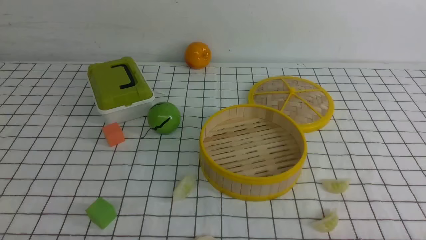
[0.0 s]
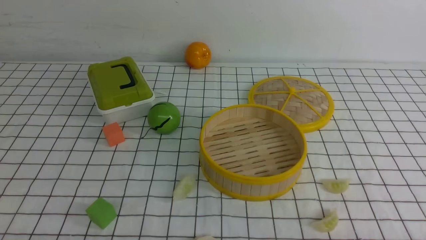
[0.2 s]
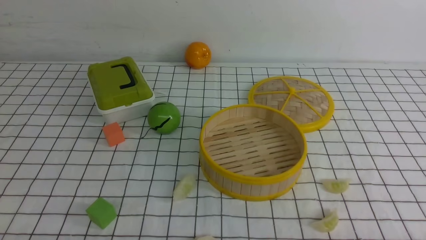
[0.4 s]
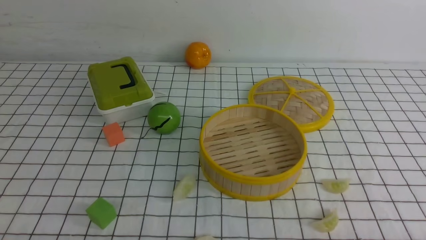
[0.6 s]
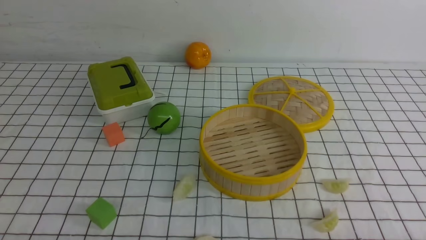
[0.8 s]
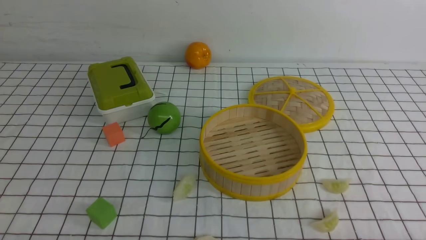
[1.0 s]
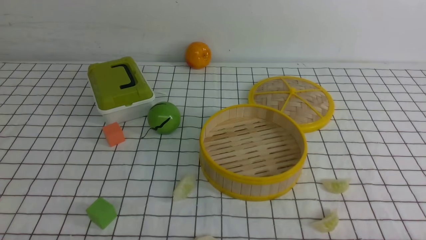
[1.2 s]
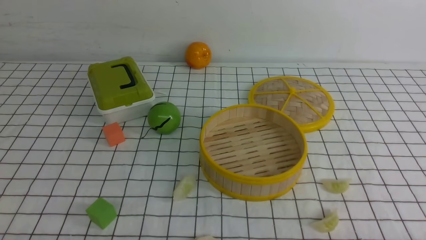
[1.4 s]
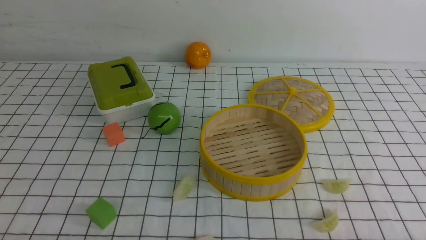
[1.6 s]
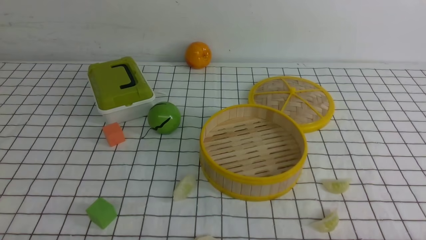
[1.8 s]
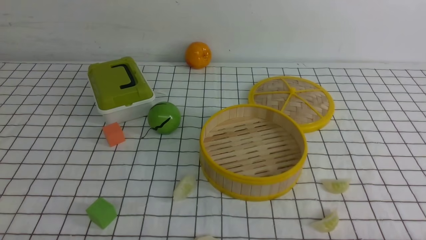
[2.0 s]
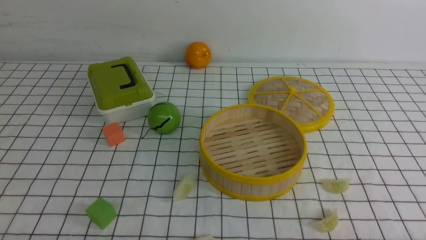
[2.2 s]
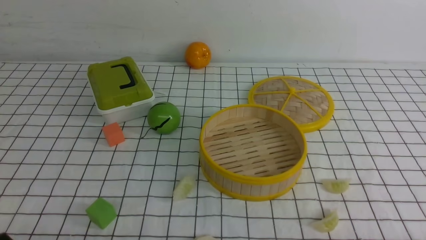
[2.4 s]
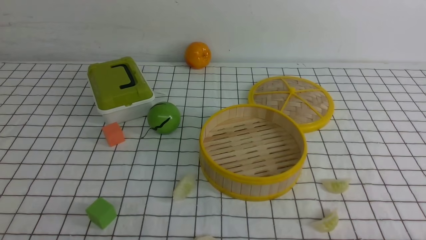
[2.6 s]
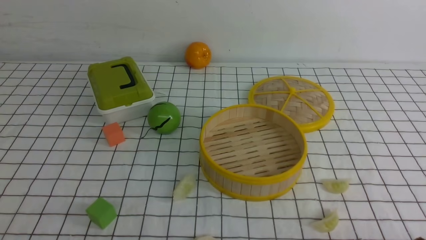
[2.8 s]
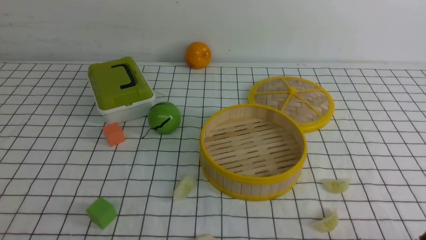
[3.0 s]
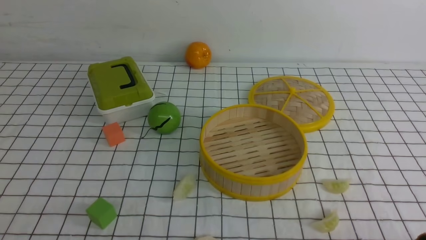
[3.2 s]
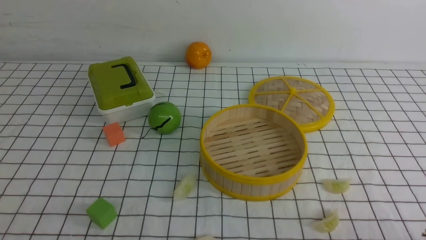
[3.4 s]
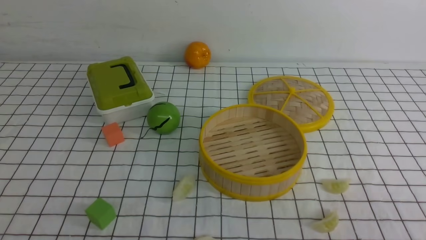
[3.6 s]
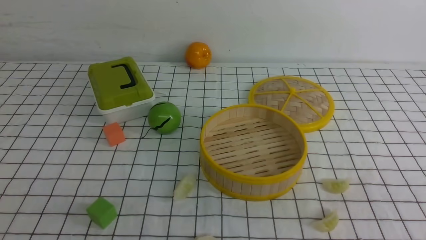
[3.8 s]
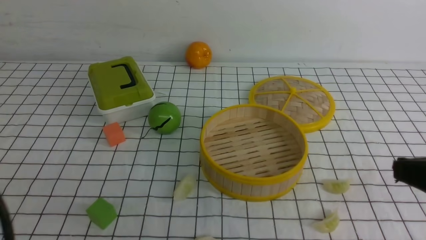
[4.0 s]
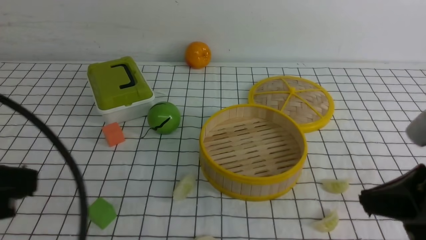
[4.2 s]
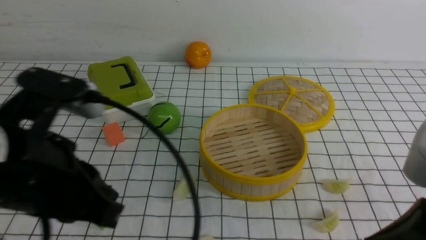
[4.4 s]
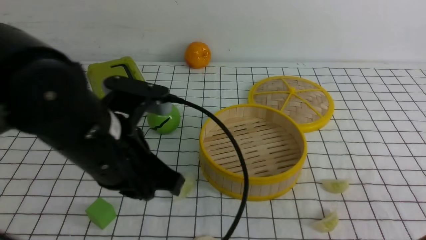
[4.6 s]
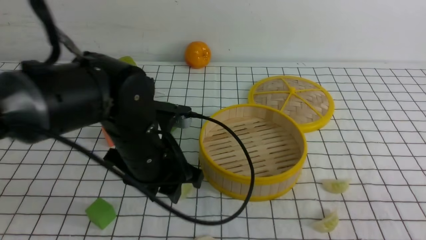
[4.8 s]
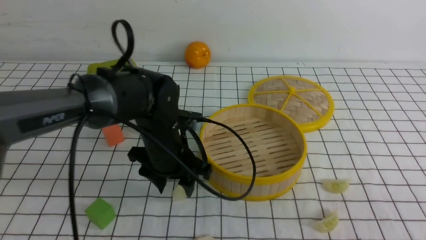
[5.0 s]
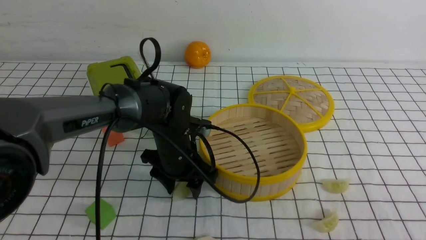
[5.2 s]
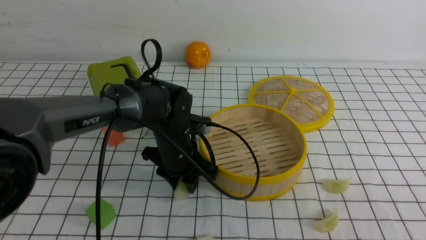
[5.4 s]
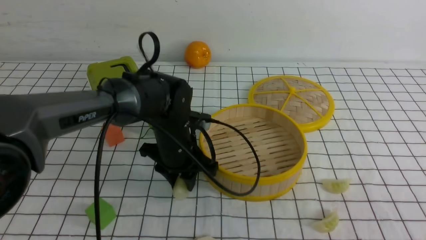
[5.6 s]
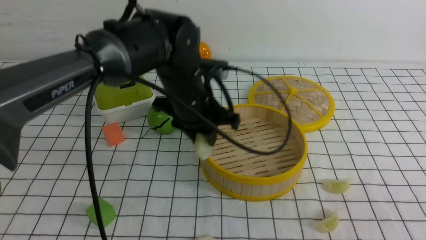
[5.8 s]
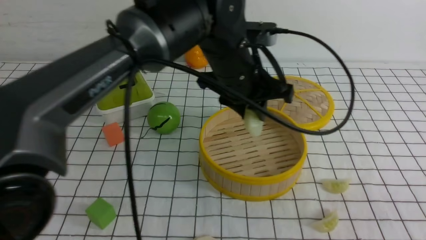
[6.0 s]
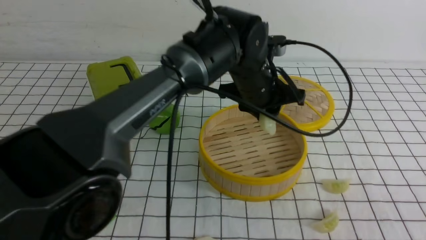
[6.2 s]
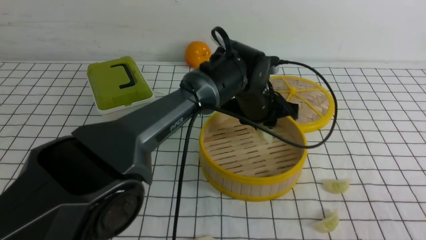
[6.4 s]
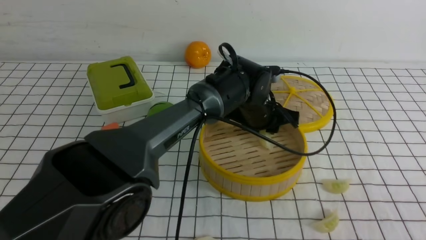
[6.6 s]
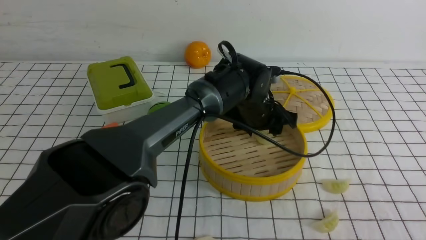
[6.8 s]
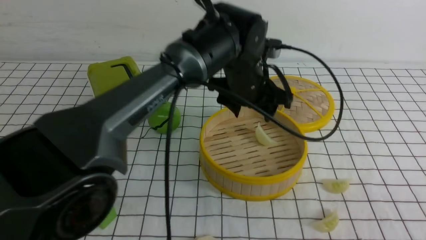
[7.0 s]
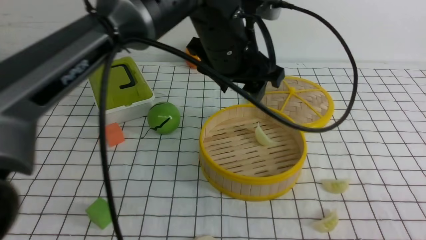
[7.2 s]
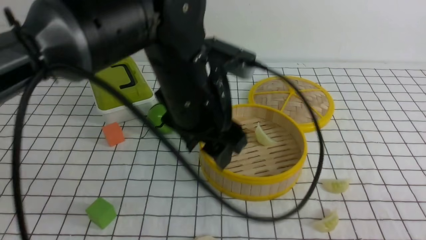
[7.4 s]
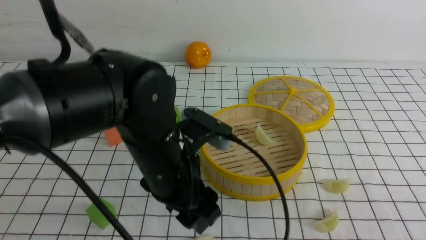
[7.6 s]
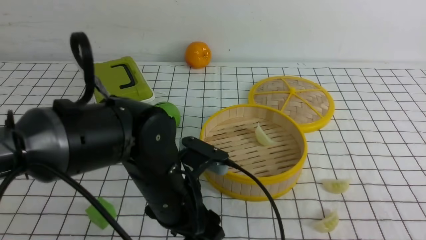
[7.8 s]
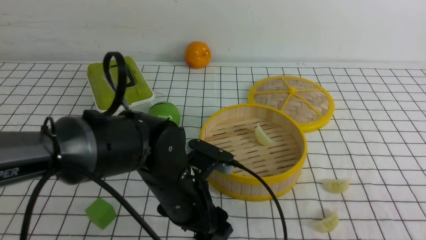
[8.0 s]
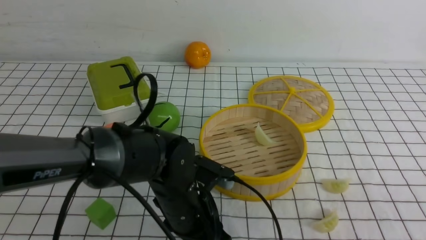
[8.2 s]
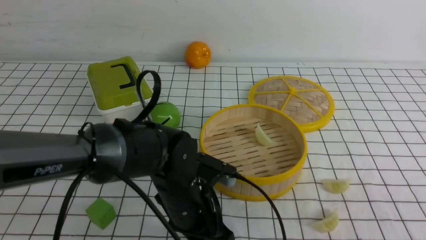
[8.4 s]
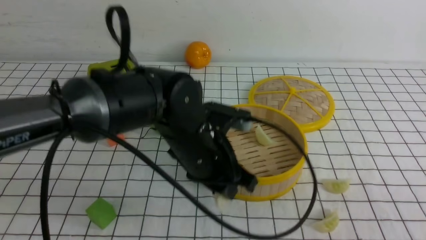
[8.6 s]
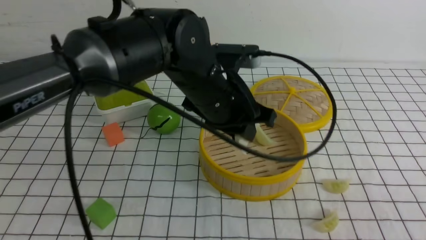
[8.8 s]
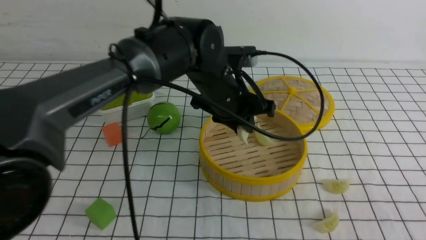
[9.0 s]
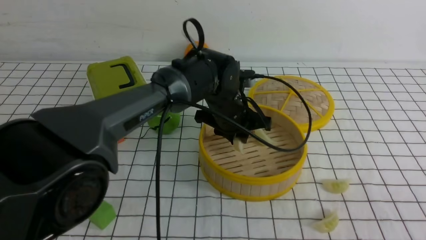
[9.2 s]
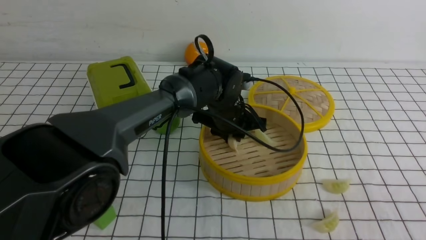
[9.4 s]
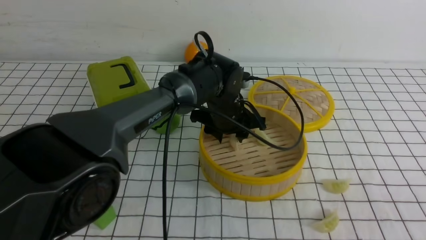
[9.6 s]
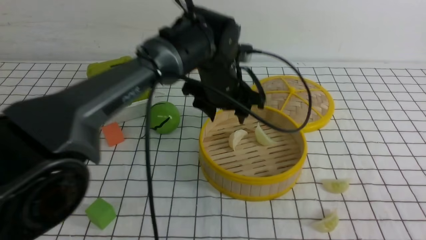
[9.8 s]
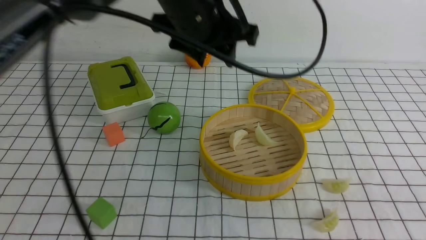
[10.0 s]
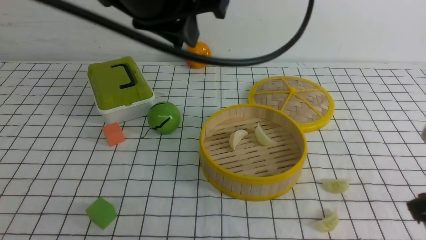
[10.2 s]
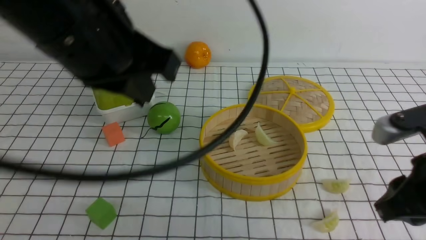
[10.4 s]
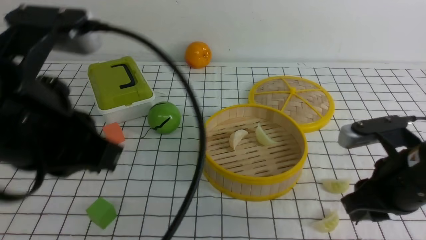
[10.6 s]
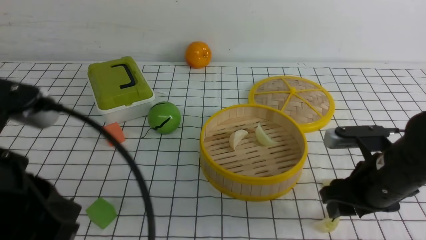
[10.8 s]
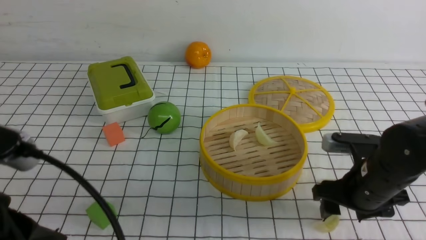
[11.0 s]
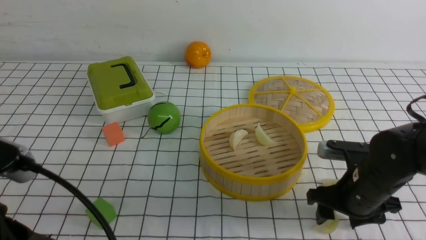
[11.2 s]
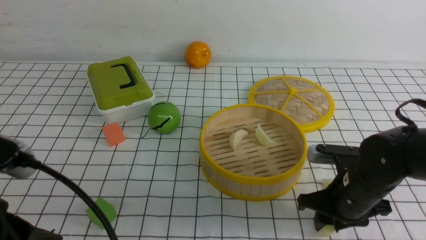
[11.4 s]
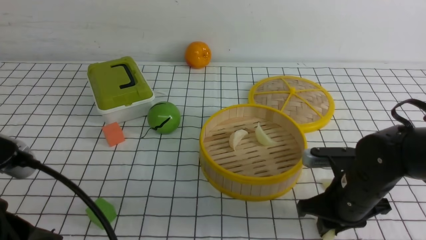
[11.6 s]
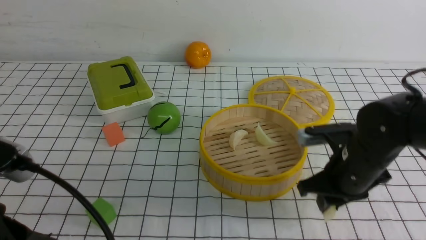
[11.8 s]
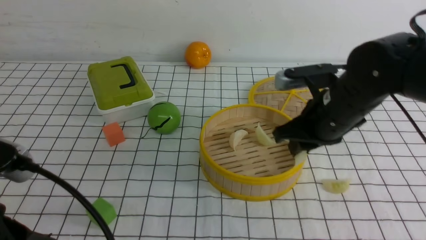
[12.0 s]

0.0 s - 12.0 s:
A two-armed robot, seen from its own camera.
Task of the whole recording: put the dumplings into the steamer on the table with the white tablecloth.
Step, 0.0 s - 5.4 s: use the left arm to grab a dumpling.
Step, 5.6 s - 6.8 s: use the left arm to put the dumpling into the steamer.
Step, 7.2 s - 8.2 s: use the left arm to grab a dumpling.
Step, 8.4 s - 9.6 s: use the left arm to put the dumpling into the steamer.
Step, 10.0 s - 11.4 s: use the right arm to grab a dumpling.
0.0 s - 1.6 s: The two grippers keep their place.
3.0 s - 4.4 s: The right gripper moves upward, forward and to the left, roughly 15 cm, and closes up; the left gripper moves upward, to the right and forward, about 20 cm, and closes.
4.4 s - 6.0 s: The left gripper goes roughly 30 cm forward and to the right, and opens. The right gripper travels backward by some 5 cm.
6.0 s - 7.6 s: The left gripper goes roughly 15 cm backward and to the left, and opens its fingers.
7.6 s - 9.0 s: The left gripper travels forward and to the right by some 15 cm, and closes its fingers.
9.0 s - 10.4 s: The right gripper travels forward and downward by about 15 cm. The left gripper moves backward, upward and to the left, roughly 30 cm, and closes its fingers.
10.4 s - 12.0 s: The right gripper moves forward and to the left, about 15 cm, and opens and closes again. The left gripper is displaced downward, backward and to the left by approximately 15 cm.

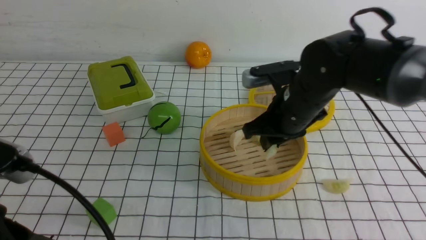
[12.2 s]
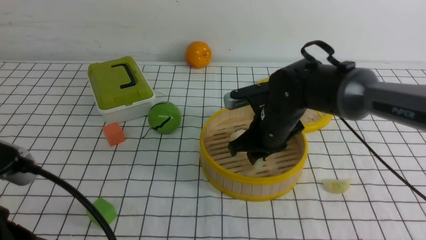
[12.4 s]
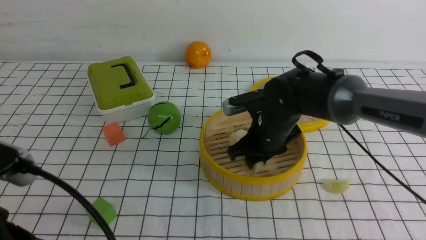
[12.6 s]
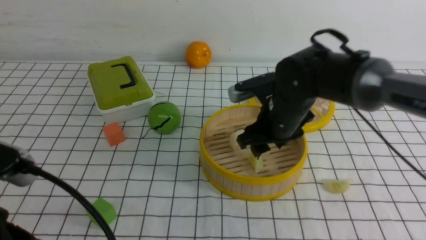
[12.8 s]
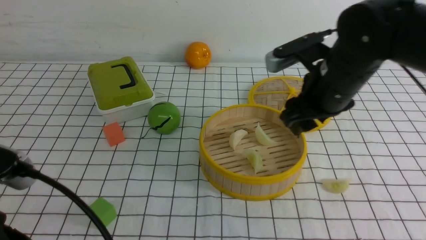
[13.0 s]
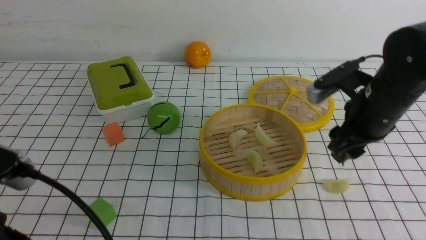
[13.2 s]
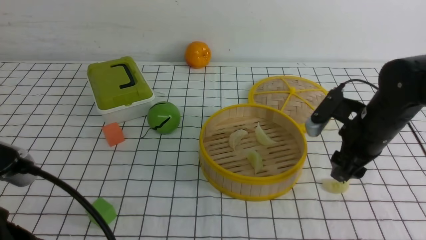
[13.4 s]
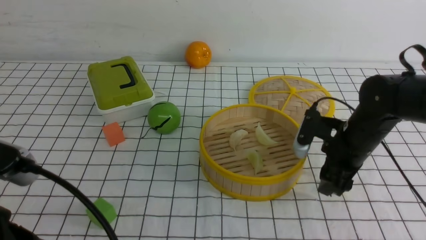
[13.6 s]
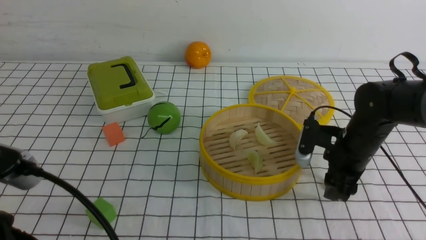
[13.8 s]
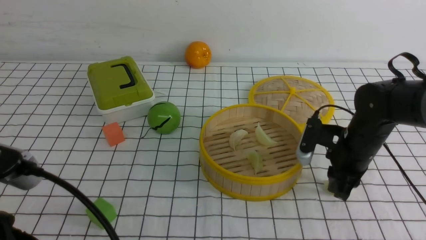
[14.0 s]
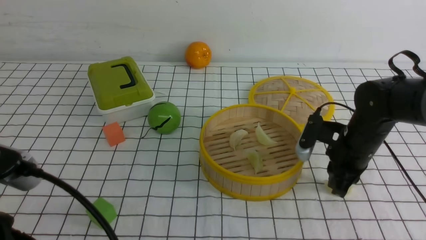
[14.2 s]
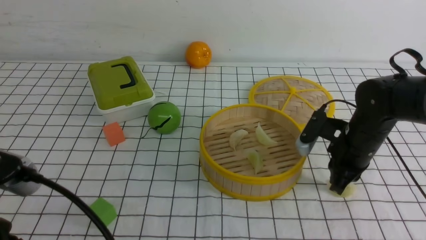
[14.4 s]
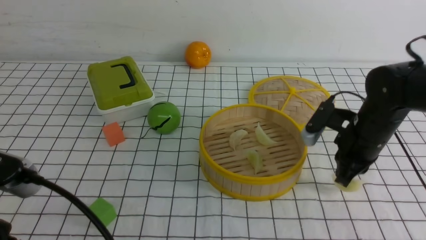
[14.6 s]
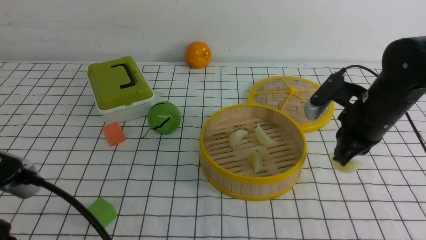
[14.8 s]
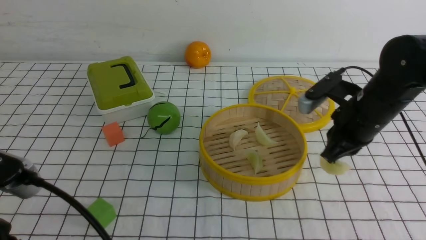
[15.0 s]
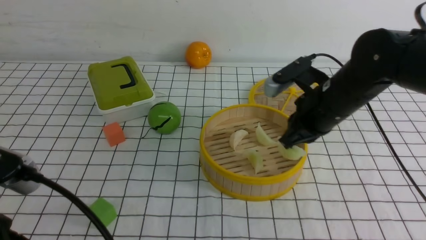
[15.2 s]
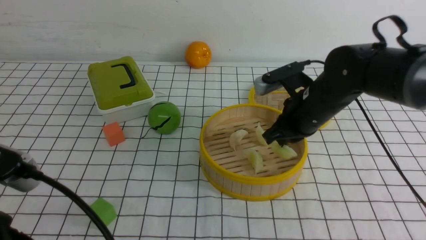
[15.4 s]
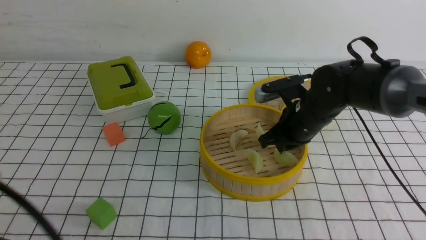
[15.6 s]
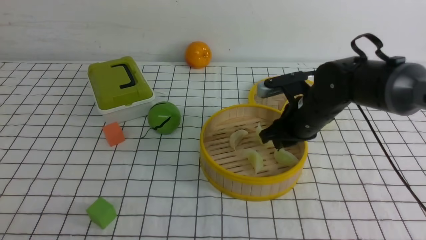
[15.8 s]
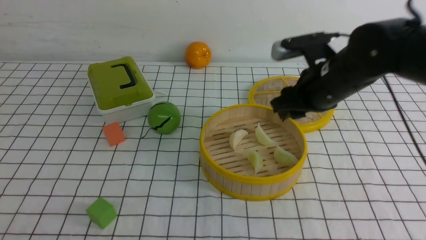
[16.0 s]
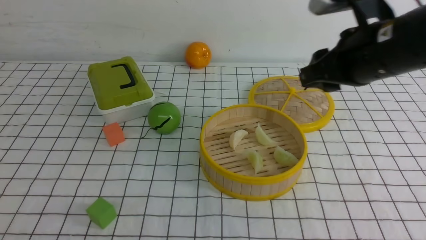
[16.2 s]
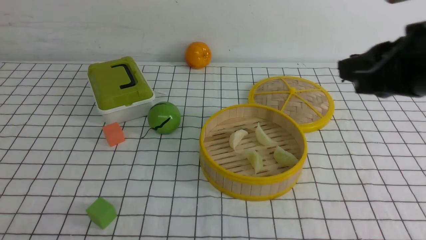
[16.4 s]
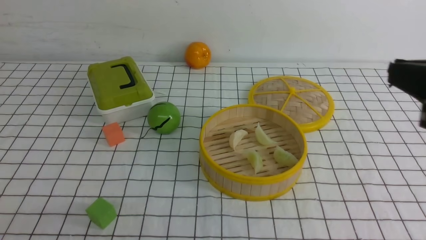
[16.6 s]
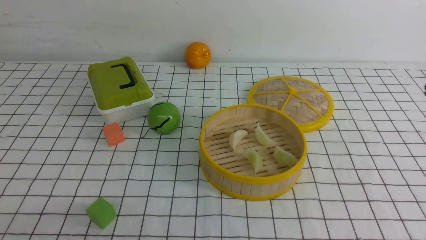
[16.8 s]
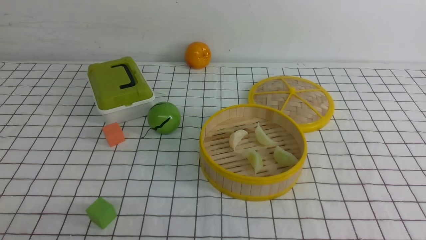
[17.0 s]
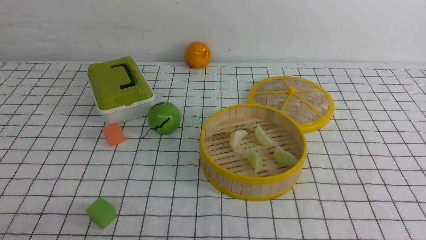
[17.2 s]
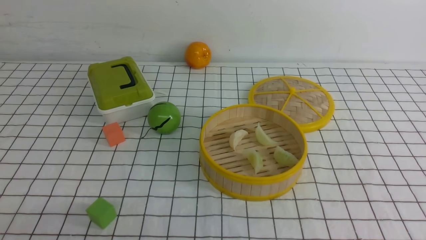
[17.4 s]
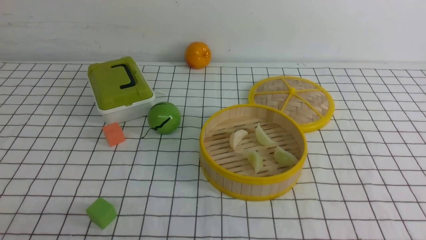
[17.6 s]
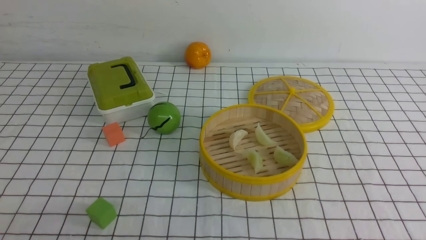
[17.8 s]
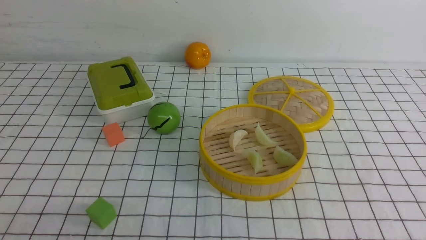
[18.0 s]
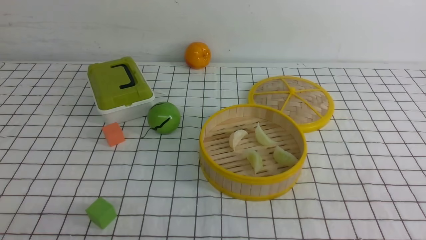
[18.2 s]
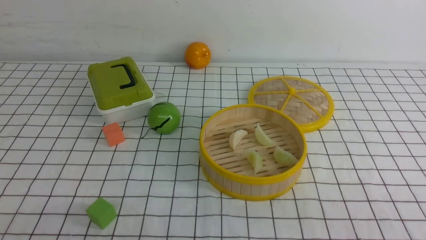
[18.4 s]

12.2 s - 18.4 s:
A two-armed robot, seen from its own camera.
Task of the whole recording: put the dumplings into the steamer on the table with the white tablecloth.
Step, 13.0 s - 14.0 s: use the right arm to grab a dumpling.
Step, 14.2 s - 15.8 s: use the right arm to put the dumpling into the steamer.
12.2 s - 13.8 s: The right gripper heads to the right and downward, covering roughly 15 cm.
13.8 s - 15.4 s: The right gripper moves to the left and upward, roughly 10 cm, and closes.
15.4 s - 16.8 s: The right gripper shifts roughly 30 cm backward and upward, and opens, then closes once more. Meanwhile the left gripper moves backward and to the left, about 10 cm.
